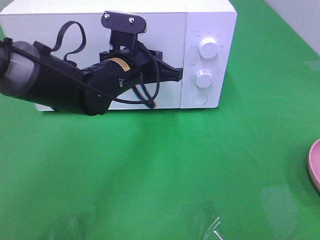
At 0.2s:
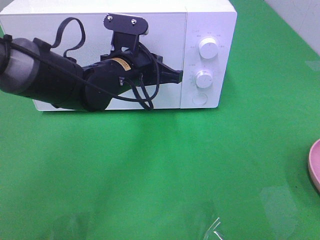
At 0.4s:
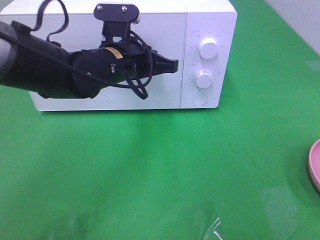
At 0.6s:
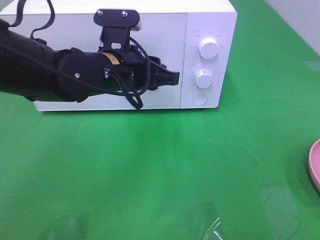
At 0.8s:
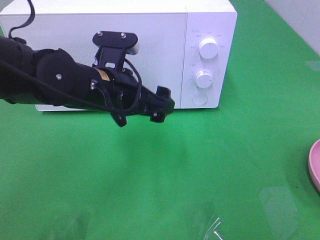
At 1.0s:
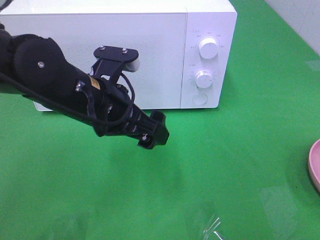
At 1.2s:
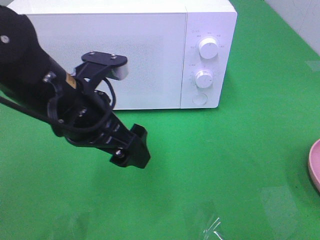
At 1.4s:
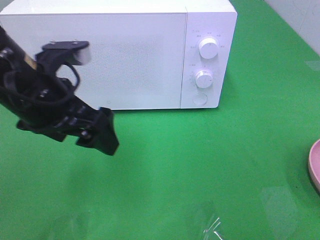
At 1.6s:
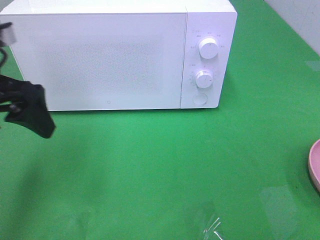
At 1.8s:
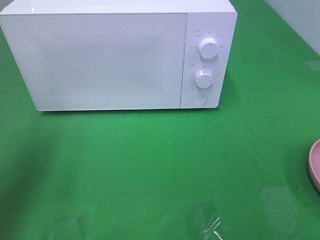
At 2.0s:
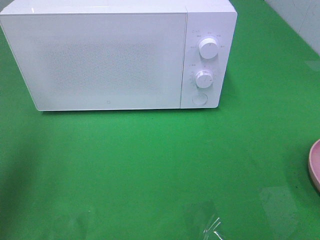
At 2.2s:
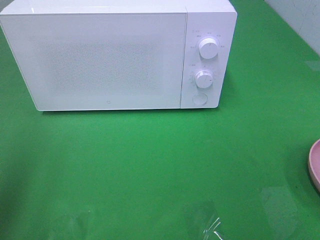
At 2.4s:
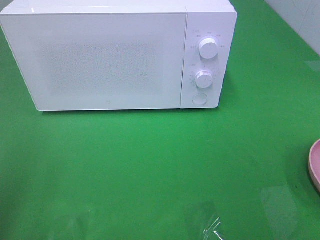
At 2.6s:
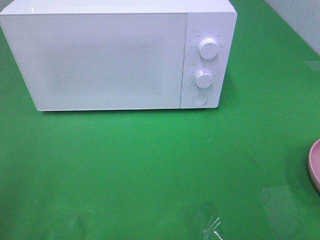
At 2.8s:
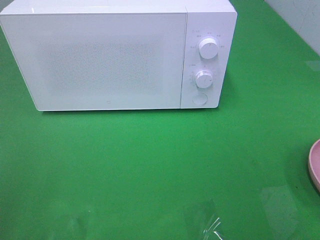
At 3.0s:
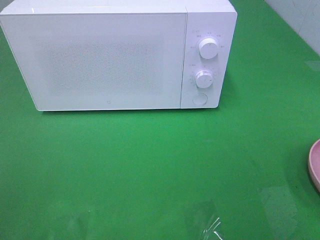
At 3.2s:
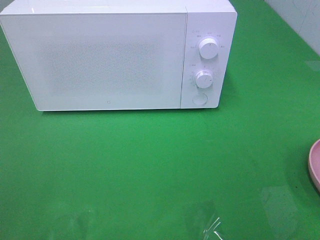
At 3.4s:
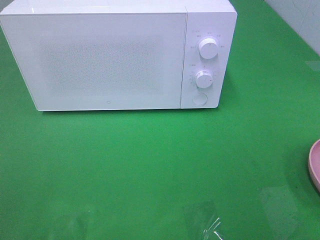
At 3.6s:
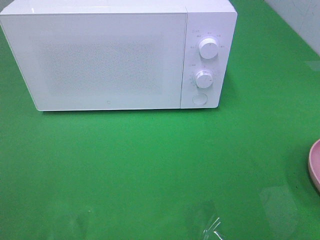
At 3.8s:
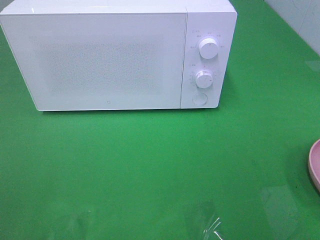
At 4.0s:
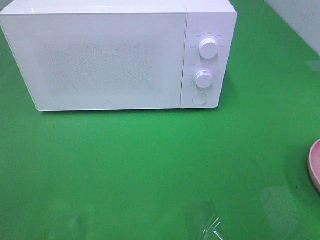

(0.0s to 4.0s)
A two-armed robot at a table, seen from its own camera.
Task of the whole recording: Heat the burger.
0.0s - 1.4s: The left gripper shifts roughly 15 cm backward, to the left and upward, and opens.
1.4s - 2.6s: The left gripper goes roughly 25 cm backward and to the left.

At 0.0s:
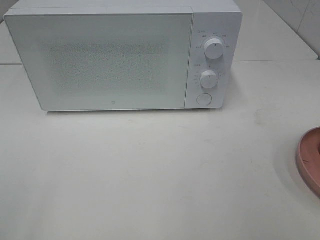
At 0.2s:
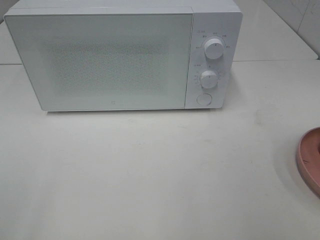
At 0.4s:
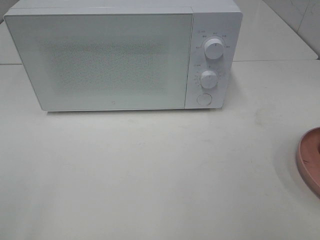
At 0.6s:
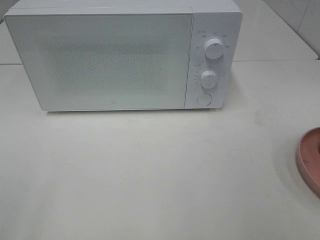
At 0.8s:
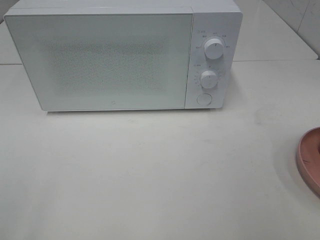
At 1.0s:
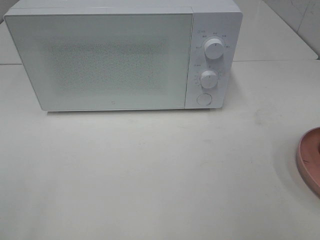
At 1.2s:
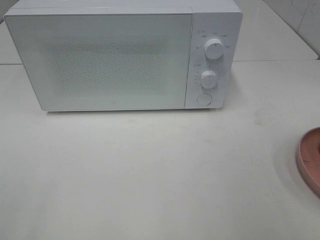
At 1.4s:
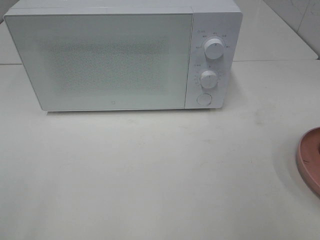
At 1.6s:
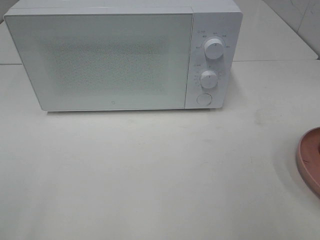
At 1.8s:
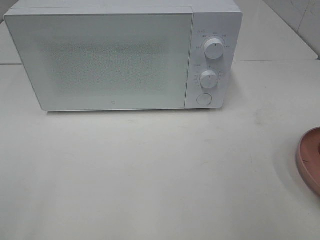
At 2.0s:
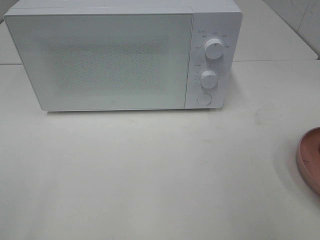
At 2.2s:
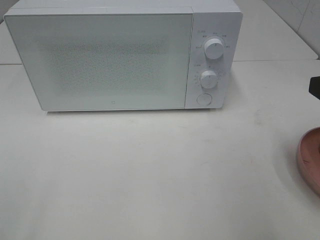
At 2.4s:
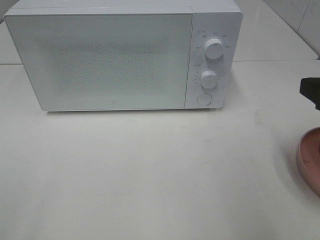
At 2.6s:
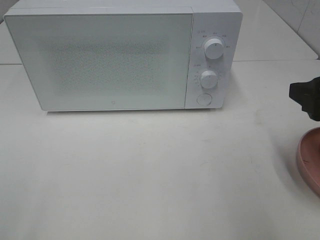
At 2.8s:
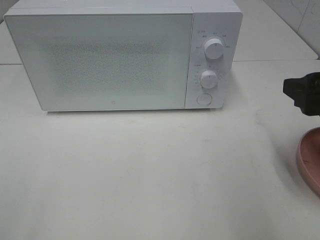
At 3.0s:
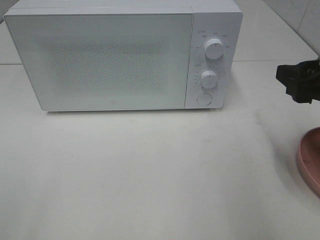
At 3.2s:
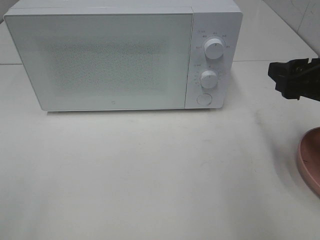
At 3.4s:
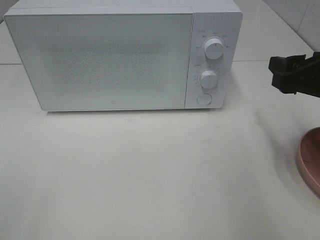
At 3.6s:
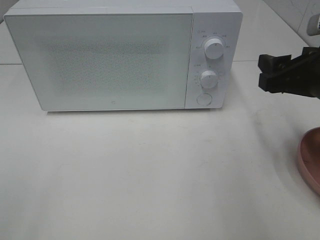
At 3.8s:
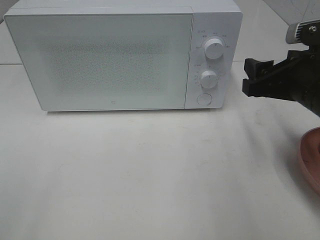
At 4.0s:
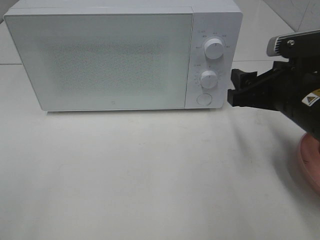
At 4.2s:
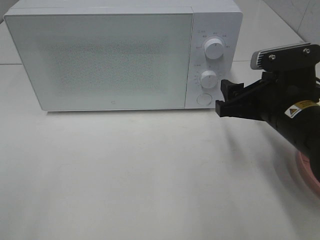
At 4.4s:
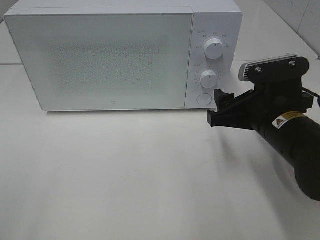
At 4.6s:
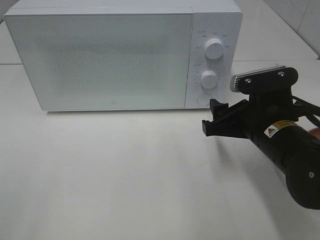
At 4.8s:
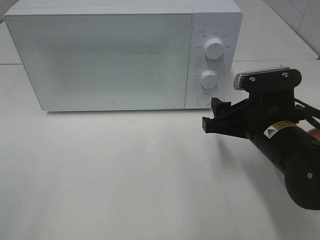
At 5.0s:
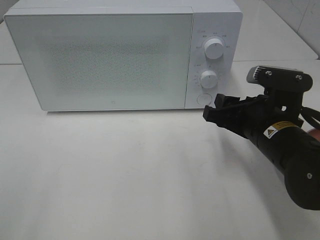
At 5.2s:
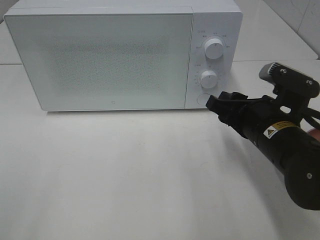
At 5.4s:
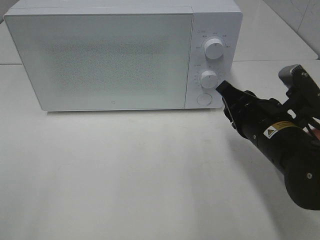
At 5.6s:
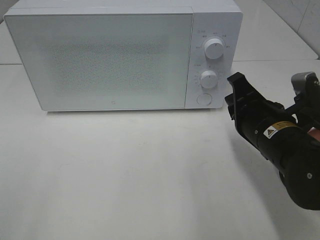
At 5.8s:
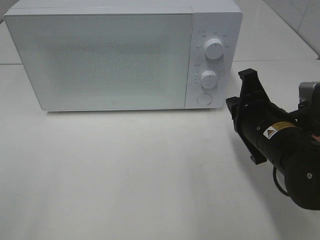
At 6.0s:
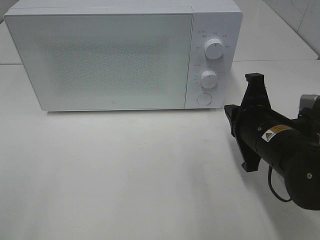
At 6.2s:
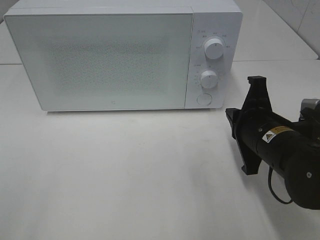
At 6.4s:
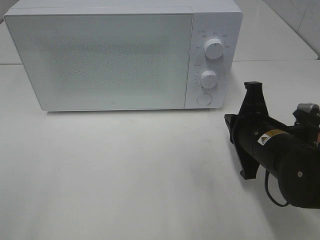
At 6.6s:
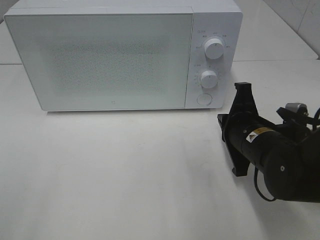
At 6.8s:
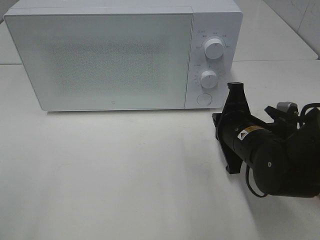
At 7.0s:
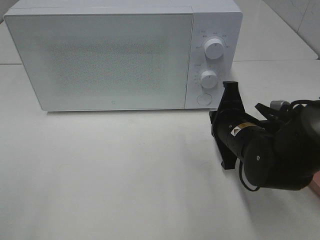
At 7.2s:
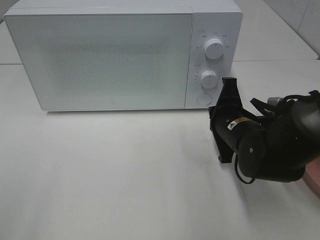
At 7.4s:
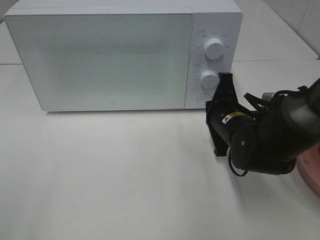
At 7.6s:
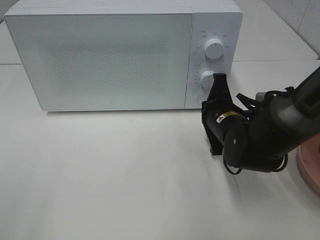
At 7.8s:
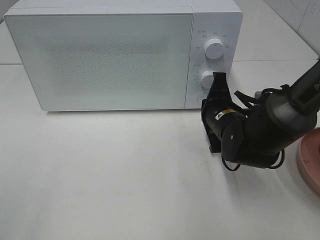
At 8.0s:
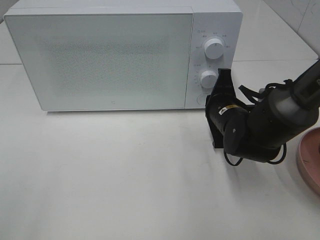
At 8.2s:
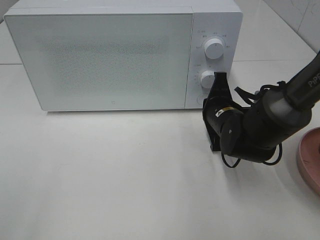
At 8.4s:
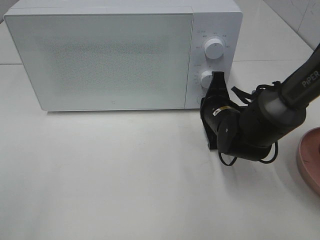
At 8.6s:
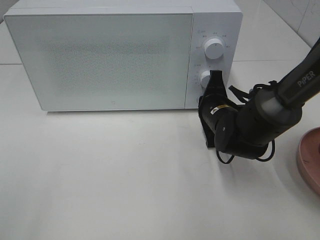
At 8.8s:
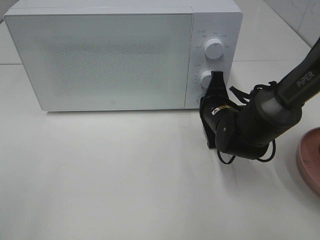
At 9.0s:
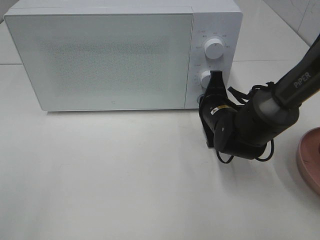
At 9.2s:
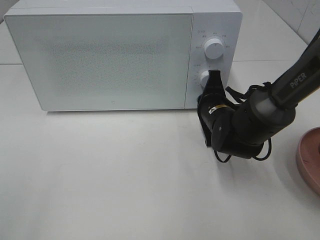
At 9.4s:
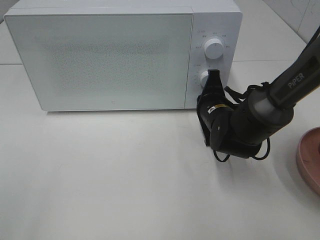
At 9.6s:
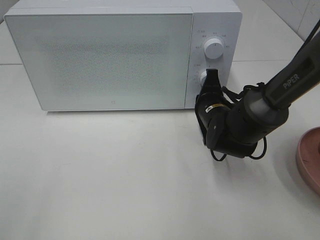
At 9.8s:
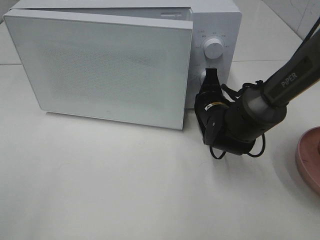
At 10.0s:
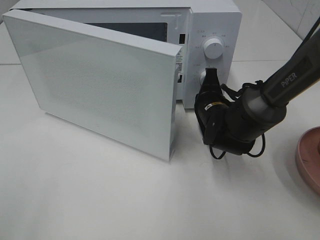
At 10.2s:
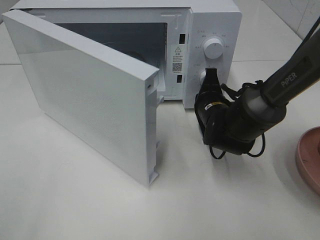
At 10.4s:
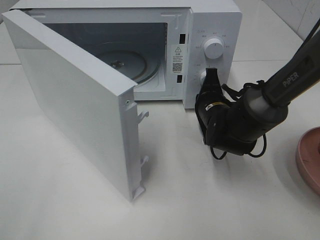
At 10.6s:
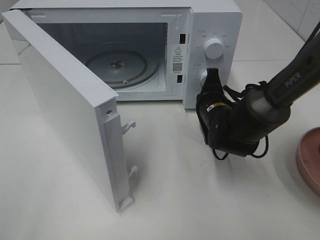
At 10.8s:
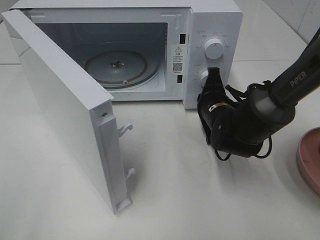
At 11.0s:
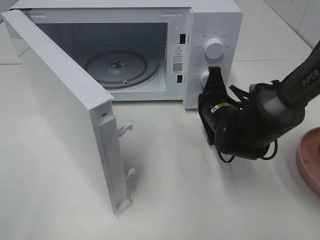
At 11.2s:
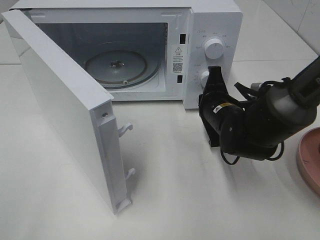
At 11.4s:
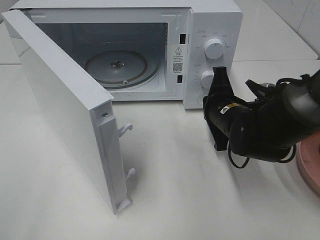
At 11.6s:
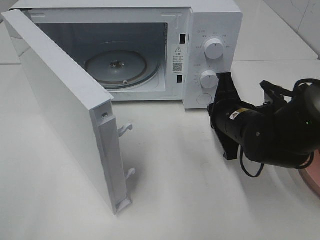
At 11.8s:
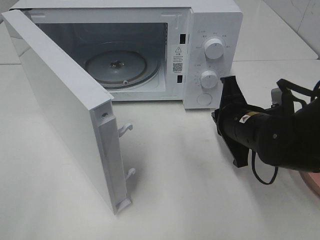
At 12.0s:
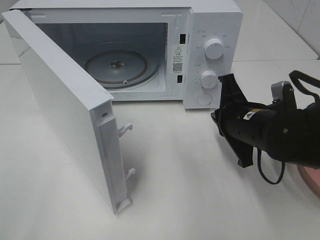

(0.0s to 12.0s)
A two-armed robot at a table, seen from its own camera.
Task of the whole recording: Heat the burger.
Step, 0.0s - 11.4s: Right hand: press the switch.
1.6s - 3.0s: The right gripper goes about 10 cm forward.
3.0s - 4.4s: The right gripper goes roughly 10 cm downward and to the left.
4.4s - 6.0s: The right gripper closes.
6.0s - 7.6s: The right gripper is displaced forward by roughly 10 cm.
7.6s - 9.0s: The grippers stay close to where they were, moving slightly.
10.4s - 12.0s: The right gripper moves backward and upward, some 10 cm.

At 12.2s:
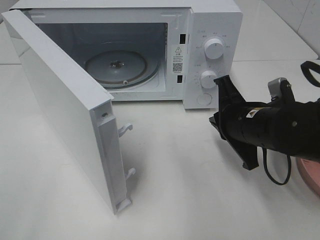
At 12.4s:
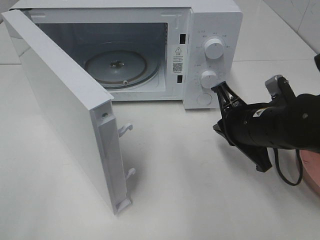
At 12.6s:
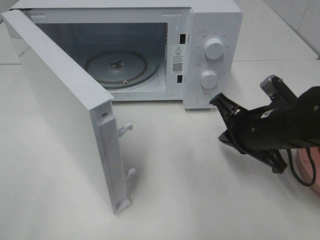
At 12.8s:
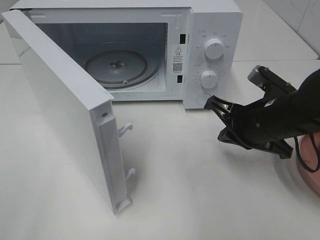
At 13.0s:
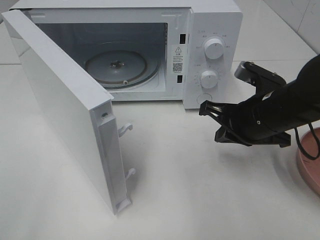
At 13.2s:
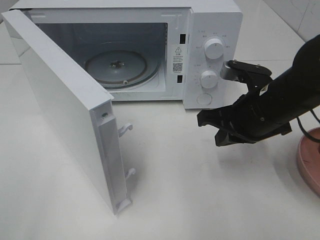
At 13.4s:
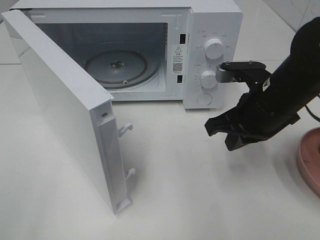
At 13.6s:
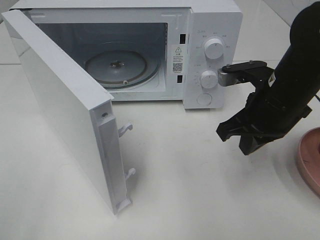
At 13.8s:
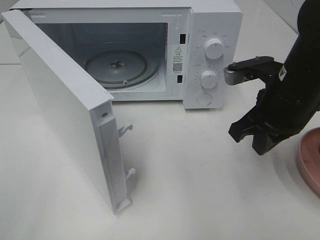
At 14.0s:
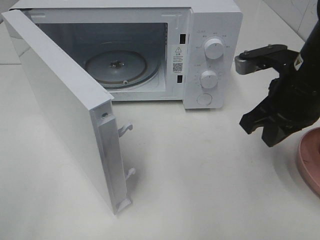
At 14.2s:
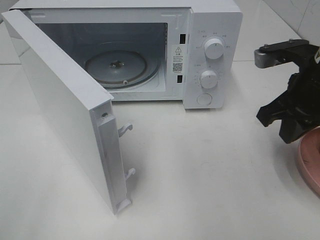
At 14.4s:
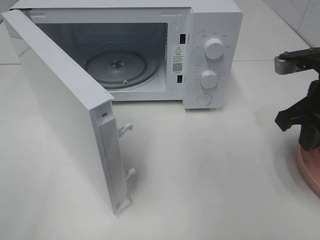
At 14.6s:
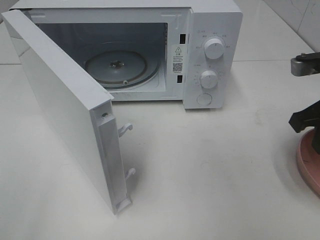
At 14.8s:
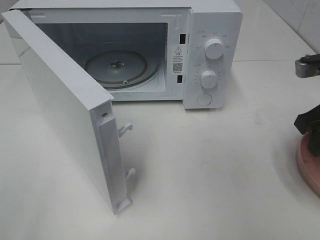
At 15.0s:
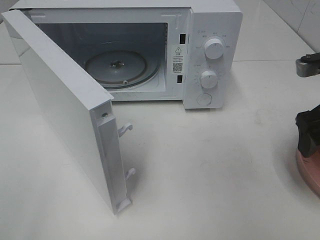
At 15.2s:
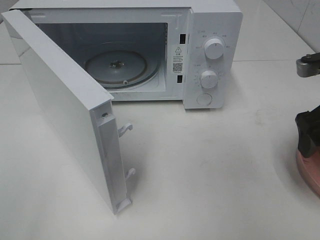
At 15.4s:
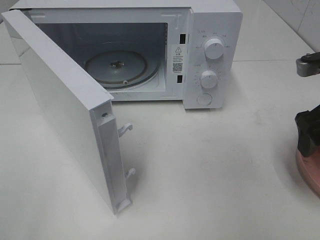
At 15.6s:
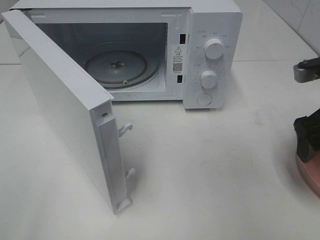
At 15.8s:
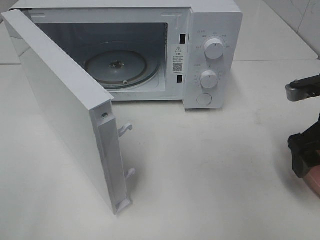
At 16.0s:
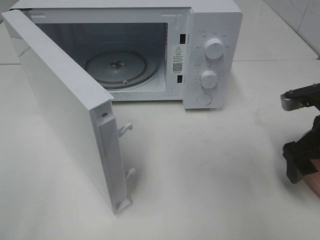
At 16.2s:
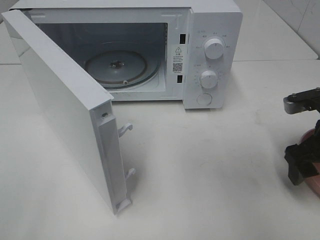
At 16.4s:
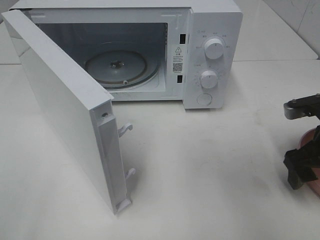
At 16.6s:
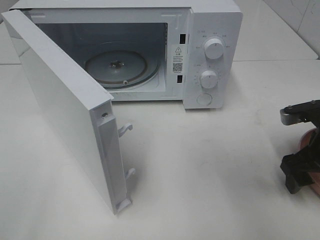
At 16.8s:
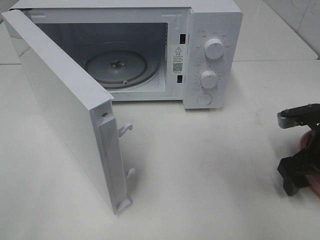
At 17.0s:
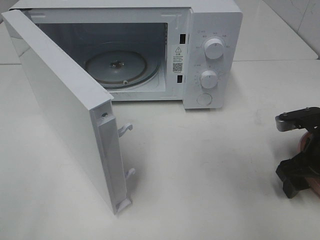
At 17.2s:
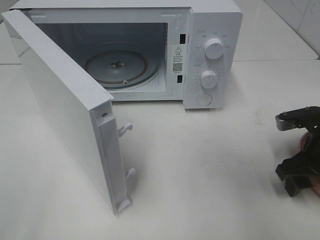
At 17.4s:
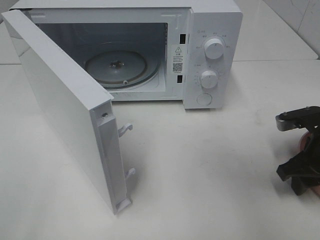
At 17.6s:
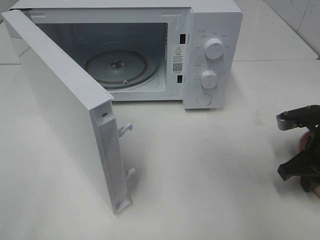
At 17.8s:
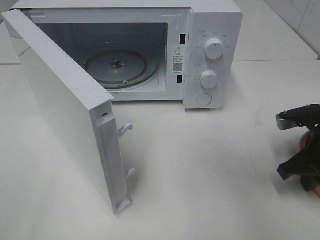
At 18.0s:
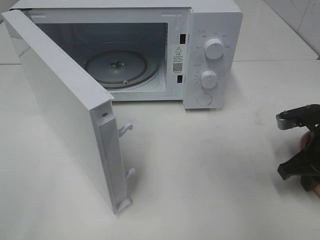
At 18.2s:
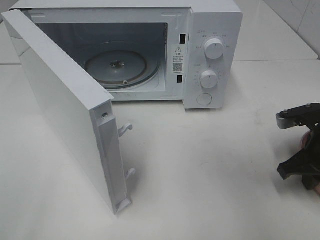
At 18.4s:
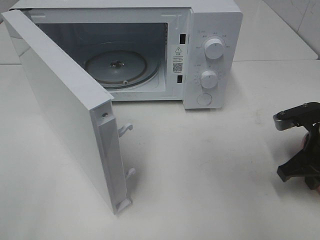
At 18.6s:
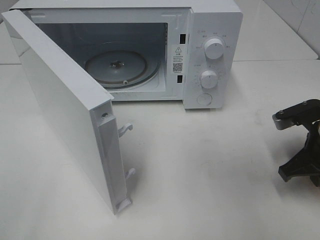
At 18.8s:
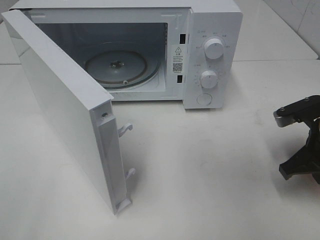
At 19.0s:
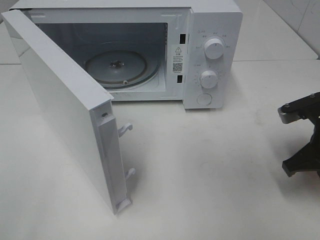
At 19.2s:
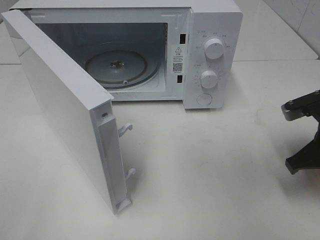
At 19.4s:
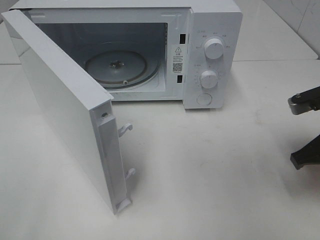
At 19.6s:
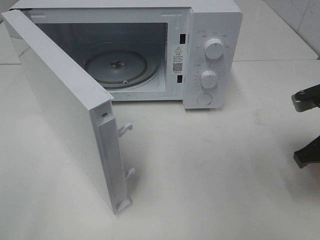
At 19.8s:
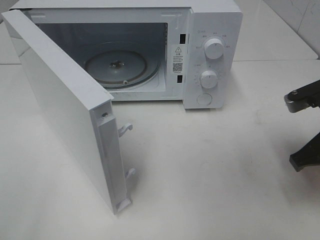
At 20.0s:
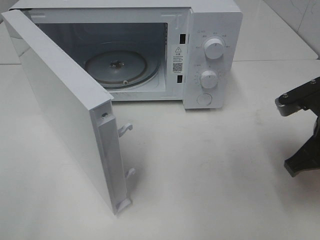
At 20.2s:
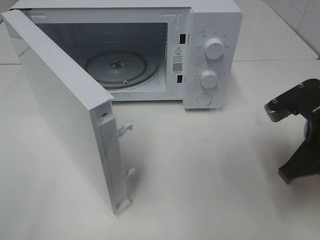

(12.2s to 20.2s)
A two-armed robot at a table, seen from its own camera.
Task of the whole recording: Heat the burger.
Step, 12.2s - 18.6s: Right hand: grab the plate with the hamburger.
12.2s - 13.8s: The right gripper heads upward, covering approximately 5 cm.
13.8s - 15.4s: The right gripper goes roughly 10 cm to the right, and opens up.
15.4s - 17.0s: The right gripper moves downward, some 10 cm.
17.0s - 18.6s: The right gripper closes its fingers.
18.6s - 20.2s: The right gripper heads upward, covering some 5 cm.
